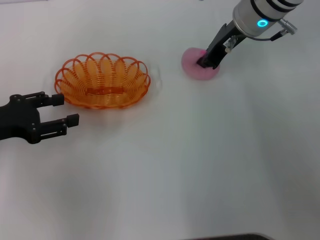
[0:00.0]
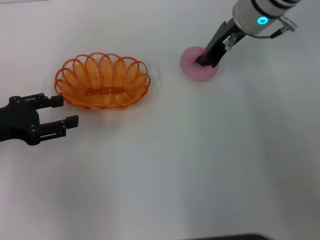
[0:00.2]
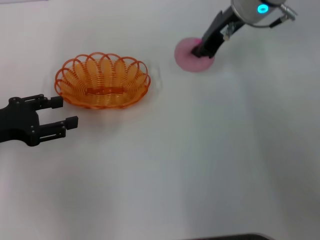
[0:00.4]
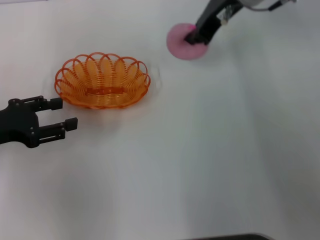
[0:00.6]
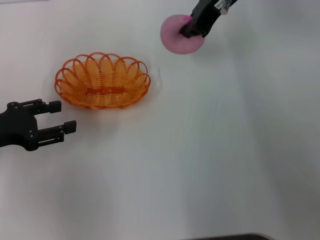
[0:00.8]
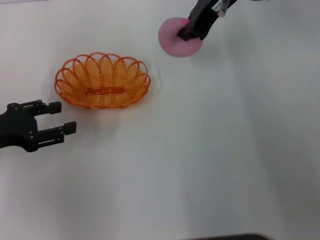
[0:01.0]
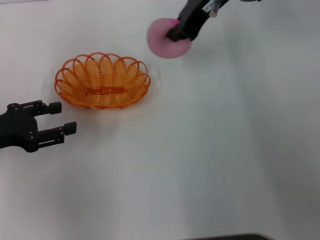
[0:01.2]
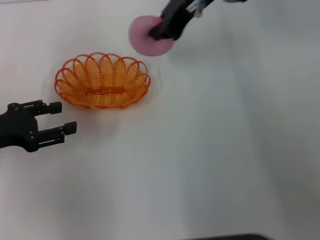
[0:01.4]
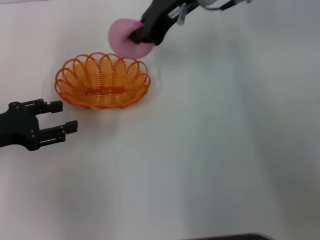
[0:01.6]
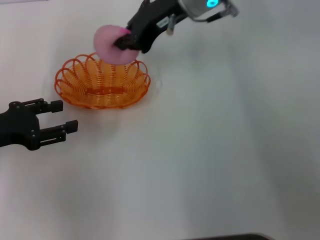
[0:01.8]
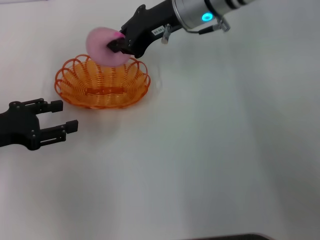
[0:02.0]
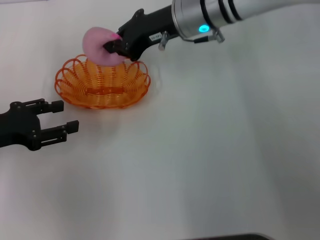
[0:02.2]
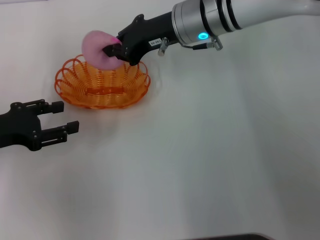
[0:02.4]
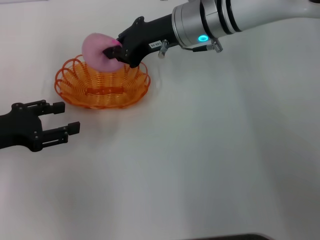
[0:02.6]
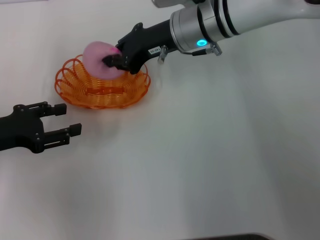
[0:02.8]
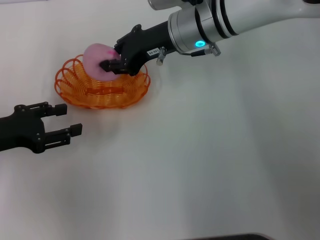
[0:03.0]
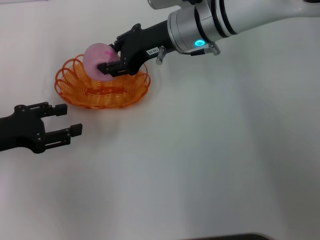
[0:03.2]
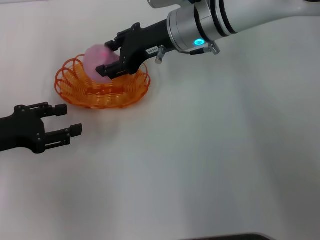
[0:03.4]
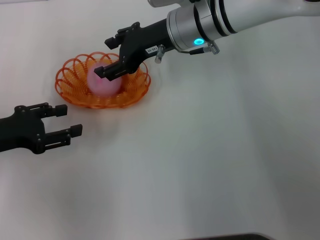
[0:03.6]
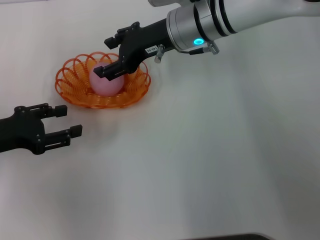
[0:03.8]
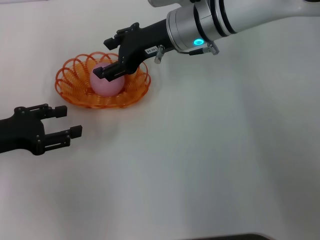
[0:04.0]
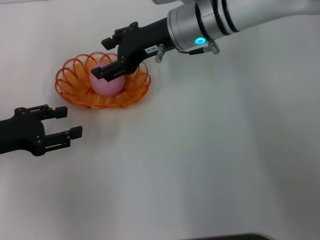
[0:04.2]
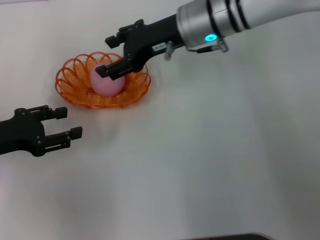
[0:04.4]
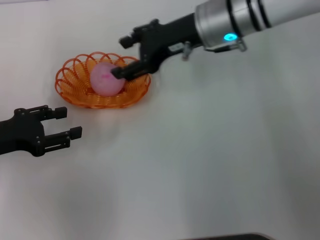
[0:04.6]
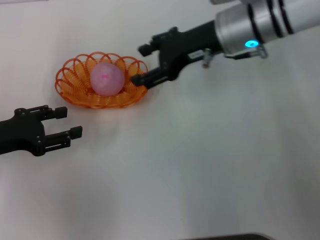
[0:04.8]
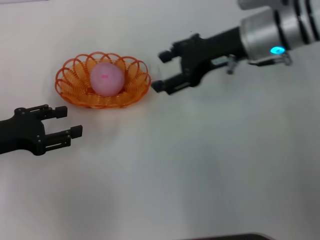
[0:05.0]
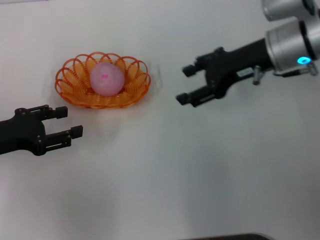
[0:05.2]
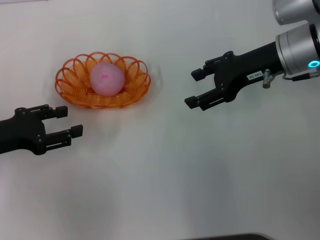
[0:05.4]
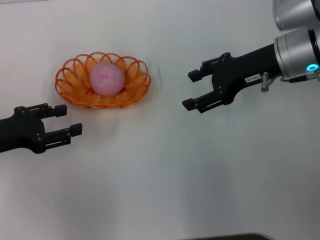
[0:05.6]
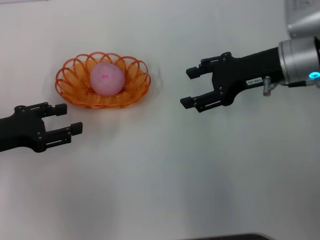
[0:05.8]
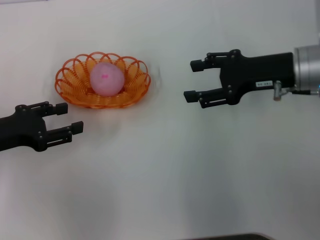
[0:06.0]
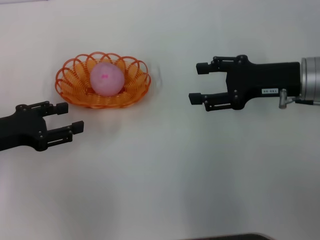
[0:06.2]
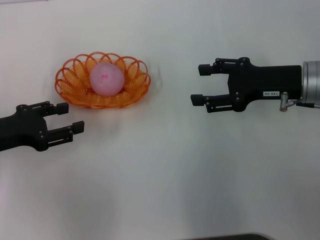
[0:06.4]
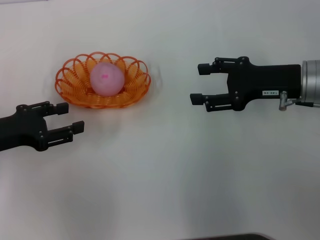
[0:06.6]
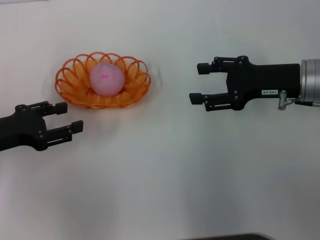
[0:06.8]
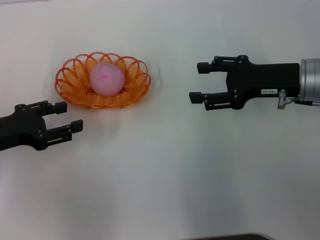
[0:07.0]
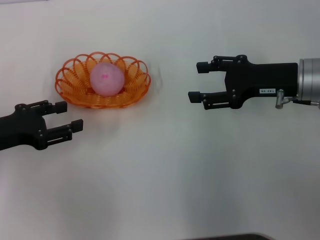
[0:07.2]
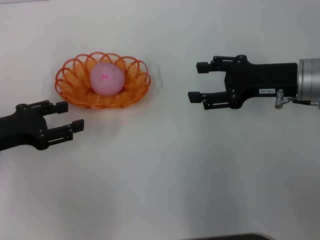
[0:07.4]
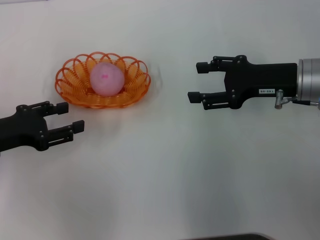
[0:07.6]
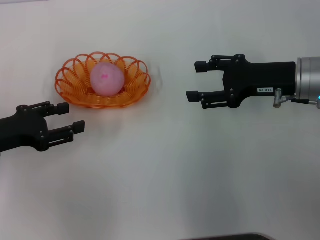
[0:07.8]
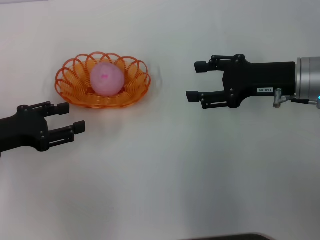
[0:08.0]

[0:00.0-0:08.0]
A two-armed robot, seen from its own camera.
Step, 0:00.8 to 0:05.0: Place the peach into the basket with the right gripper.
0:00.0 to 0:01.6: The right gripper goes approximately 10 cm to the left and upward.
0:01.6 to 0:03.2: The right gripper heads downward, covering some 10 cm.
0:03.2 to 0:04.8: The right gripper goes approximately 5 cm to the right, and opens up.
0:04.8 to 0:06.4: The right gripper shifts about 15 cm to the right, backward and downward.
0:06.4 to 0:08.0: The two grippers keep their place.

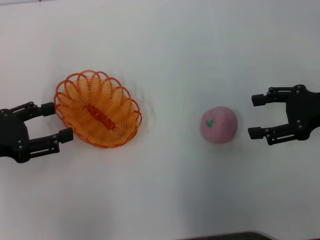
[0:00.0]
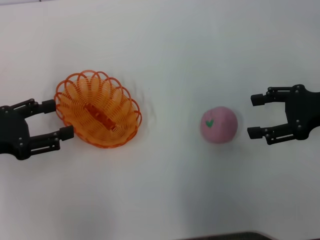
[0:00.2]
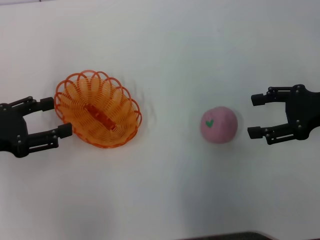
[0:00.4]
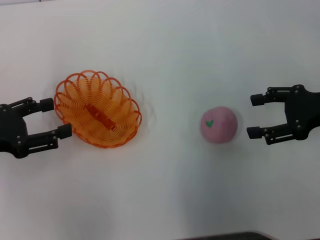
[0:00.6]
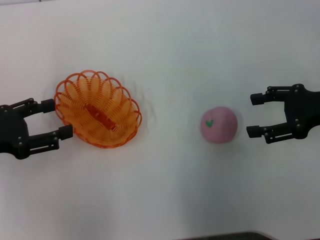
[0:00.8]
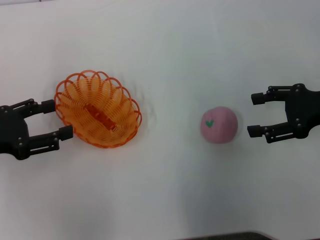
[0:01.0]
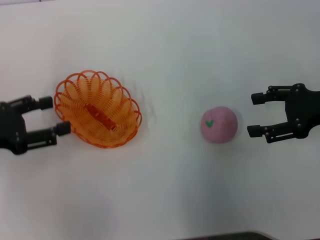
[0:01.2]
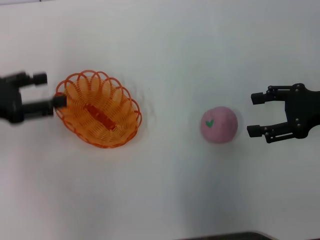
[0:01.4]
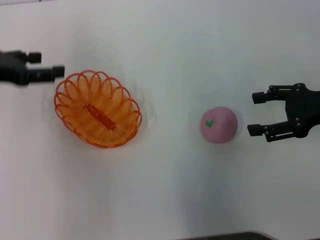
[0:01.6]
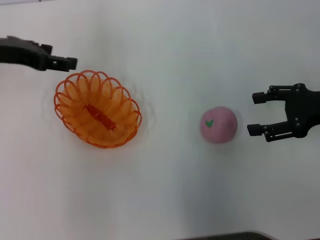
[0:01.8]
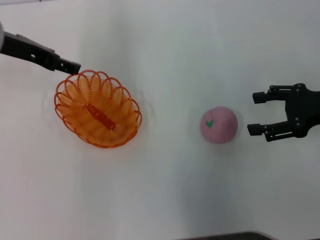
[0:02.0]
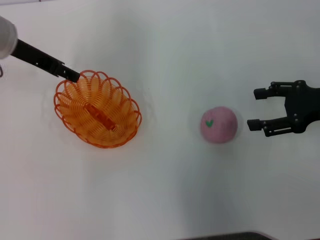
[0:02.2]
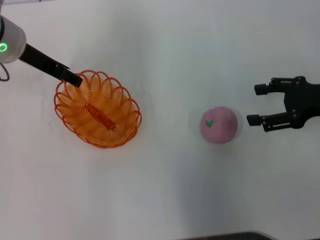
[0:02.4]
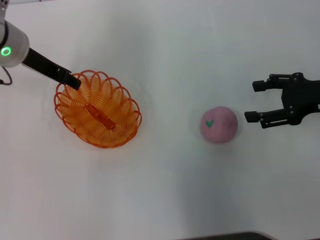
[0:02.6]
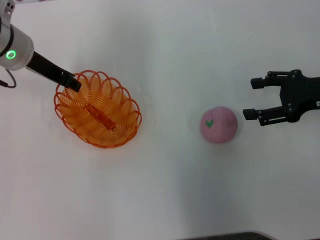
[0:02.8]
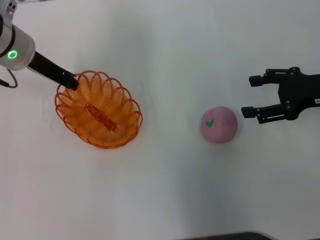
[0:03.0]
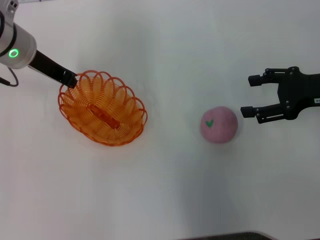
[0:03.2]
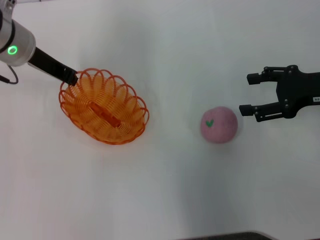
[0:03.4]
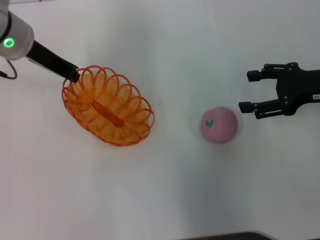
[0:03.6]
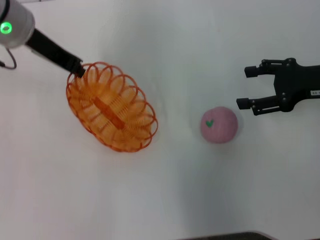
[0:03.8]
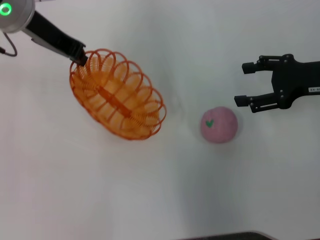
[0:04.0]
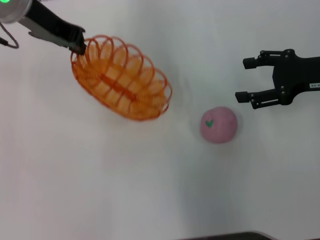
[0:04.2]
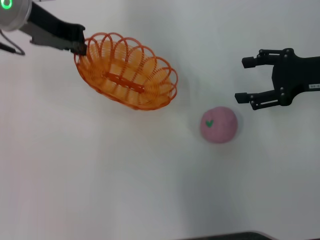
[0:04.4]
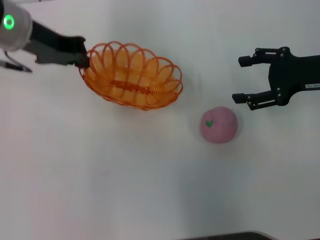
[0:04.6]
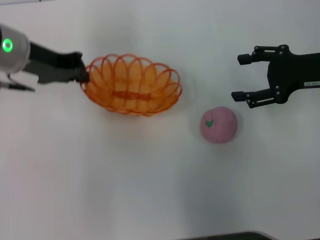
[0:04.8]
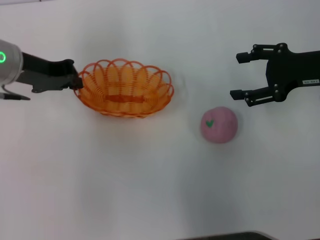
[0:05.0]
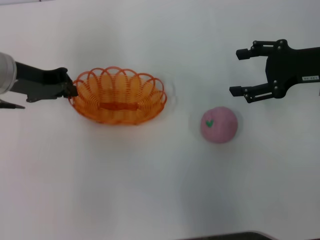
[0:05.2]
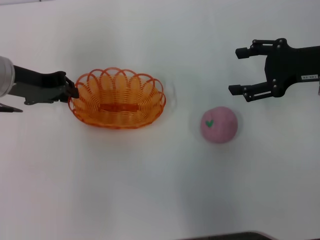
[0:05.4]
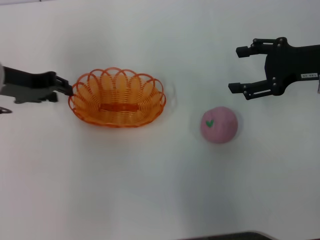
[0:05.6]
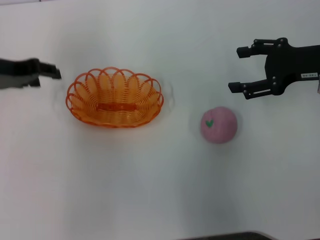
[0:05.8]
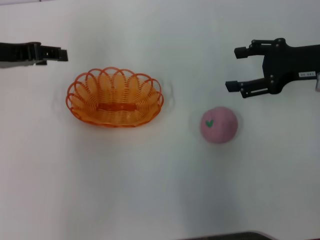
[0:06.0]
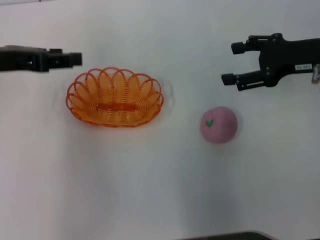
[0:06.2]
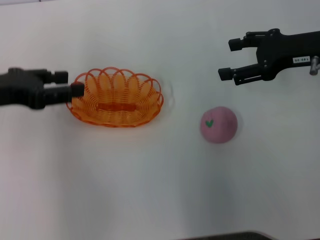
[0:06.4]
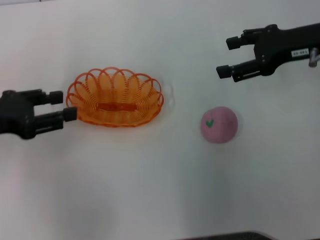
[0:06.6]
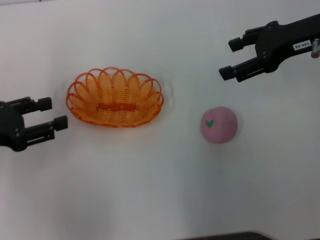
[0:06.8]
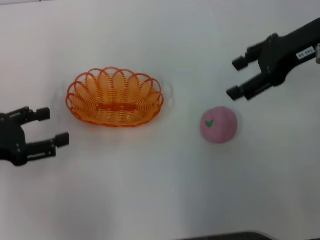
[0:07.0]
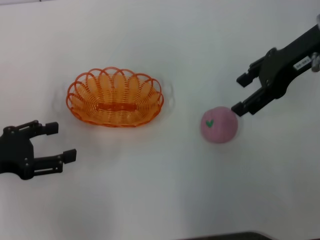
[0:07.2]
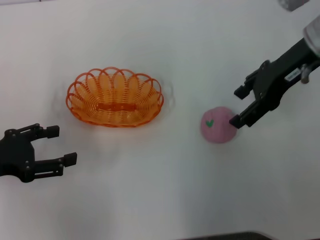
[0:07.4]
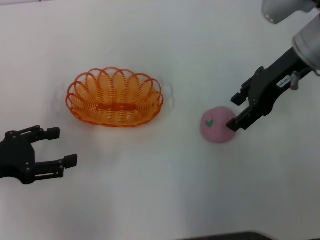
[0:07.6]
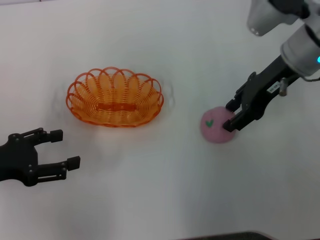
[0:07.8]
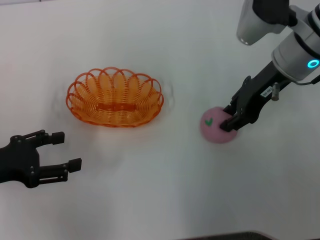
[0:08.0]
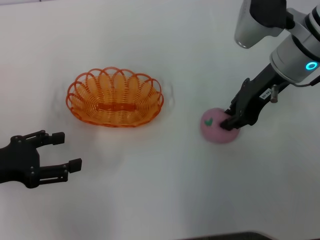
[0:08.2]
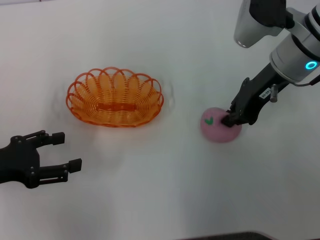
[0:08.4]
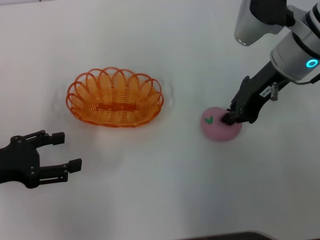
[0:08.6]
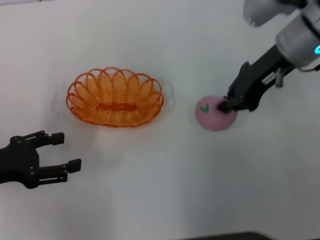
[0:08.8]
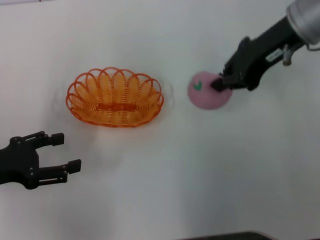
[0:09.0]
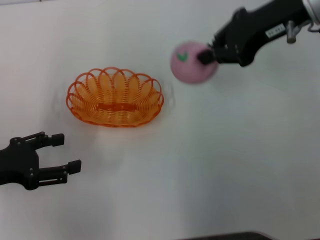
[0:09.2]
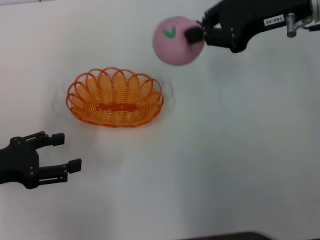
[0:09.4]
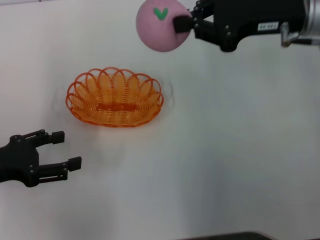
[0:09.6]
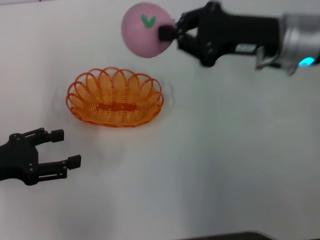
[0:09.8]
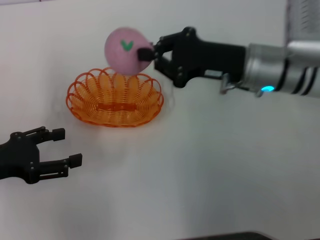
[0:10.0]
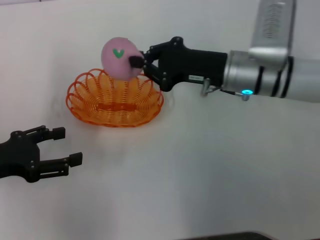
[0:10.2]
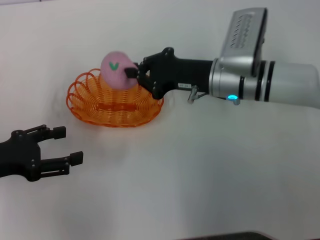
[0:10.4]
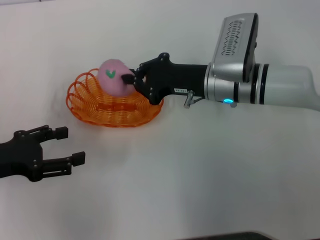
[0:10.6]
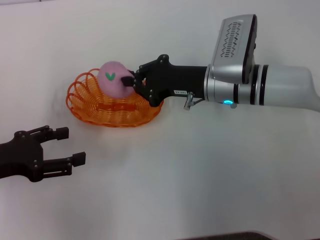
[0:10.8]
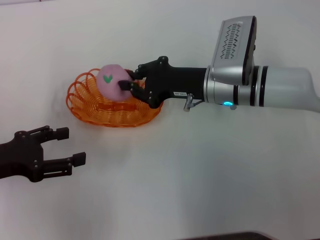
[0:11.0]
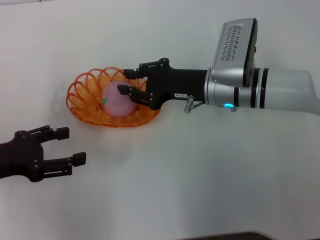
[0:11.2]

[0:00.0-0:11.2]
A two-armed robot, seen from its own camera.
Step, 0:00.0 to 0:04.0: Pick up the basket with the left gripper.
Step, 0:04.2 to 0:05.8: Place the basket in the center of view with the left gripper.
Step, 0:06.0 to 0:09.0: Pick up the peach with the right gripper.
0:00.0 to 0:01.6: The left gripper heads forward and upward, covering about 10 cm.
0:01.6 to 0:03.2: The left gripper goes about 15 cm to the right and forward, and closes up.
0:03.2 to 0:04.8: The left gripper goes upward and returns, about 10 cm each way.
0:04.8 to 0:06.4: The left gripper goes some 10 cm backward and to the left, and opens up.
0:06.4 to 0:08.0: The left gripper shifts roughly 10 cm downward and backward, while the right gripper goes about 10 cm to the left.
0:08.0 to 0:09.6: The right gripper closes up.
0:09.6 to 0:11.2: The right gripper travels downward and to the left by approximately 15 cm.

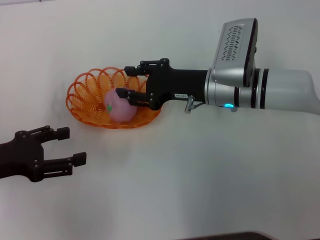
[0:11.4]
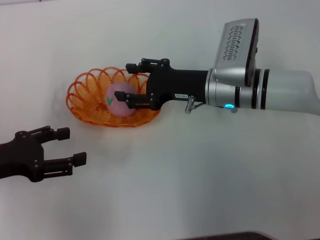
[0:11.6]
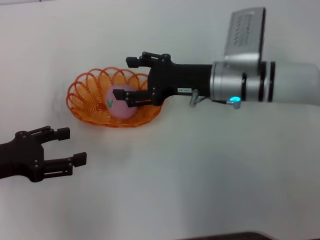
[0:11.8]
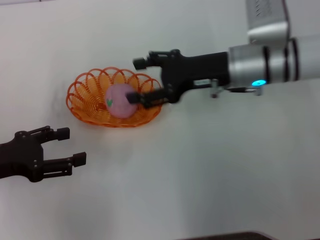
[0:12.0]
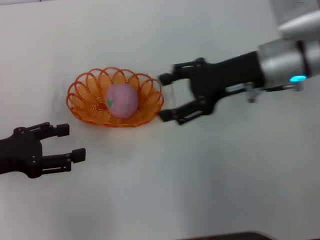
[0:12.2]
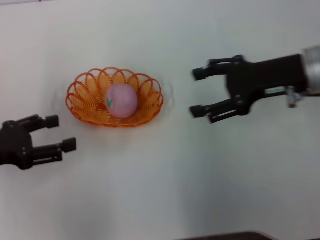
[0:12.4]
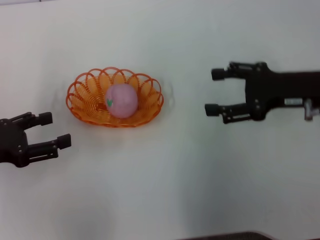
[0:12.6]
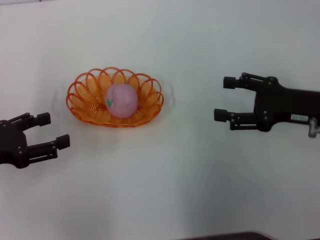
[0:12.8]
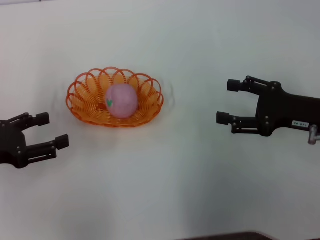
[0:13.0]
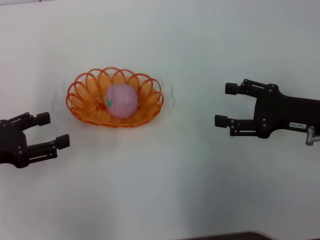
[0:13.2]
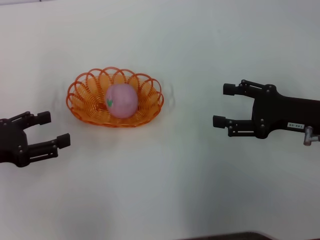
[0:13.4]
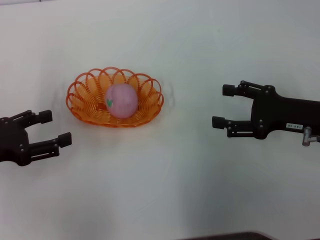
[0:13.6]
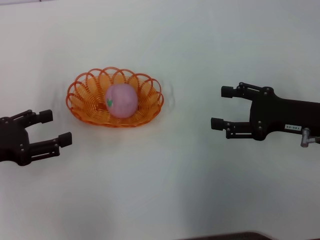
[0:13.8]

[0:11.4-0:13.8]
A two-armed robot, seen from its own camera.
0:11.4 to 0:12.6: The right gripper shifts roughly 15 cm to the right, upward and backward, and opens.
0:12.6 to 0:13.8: The right gripper is displaced downward by roughly 5 cm.
